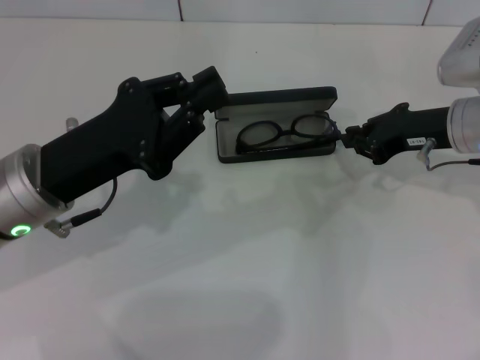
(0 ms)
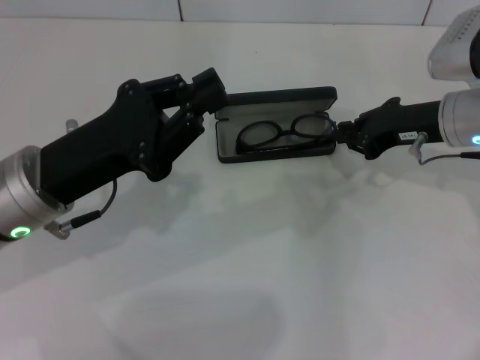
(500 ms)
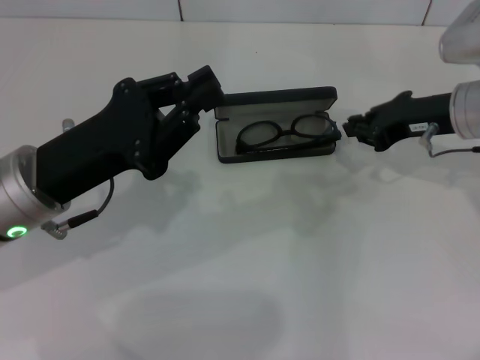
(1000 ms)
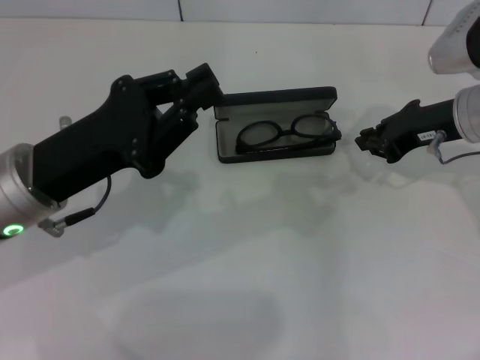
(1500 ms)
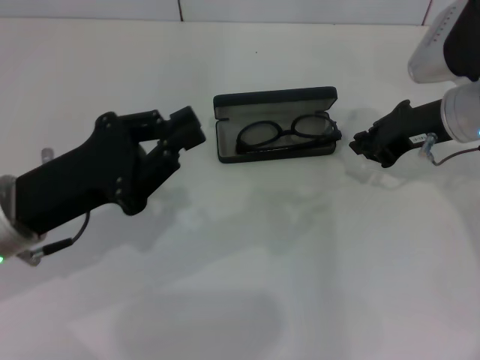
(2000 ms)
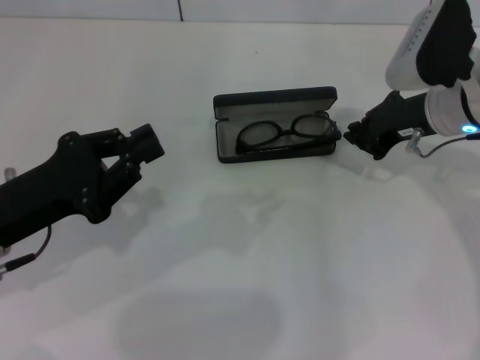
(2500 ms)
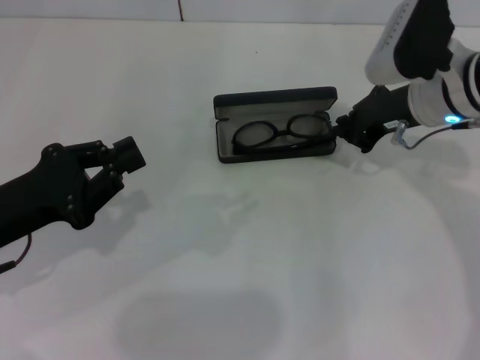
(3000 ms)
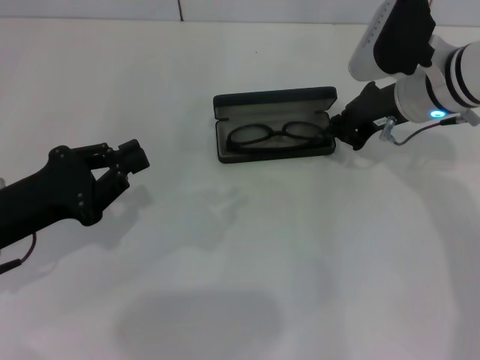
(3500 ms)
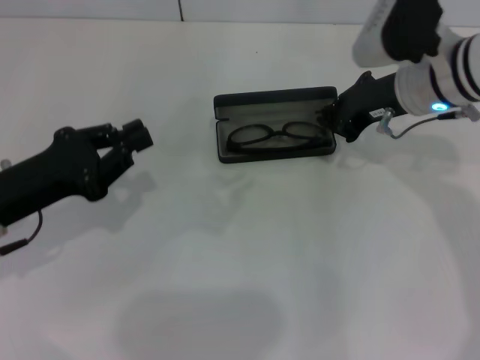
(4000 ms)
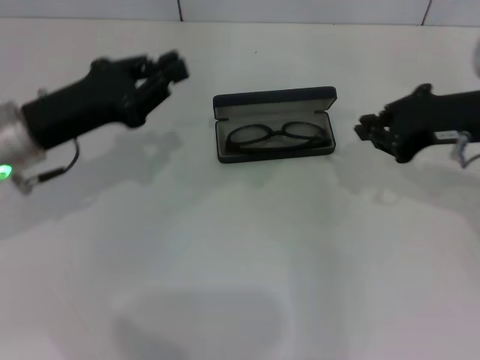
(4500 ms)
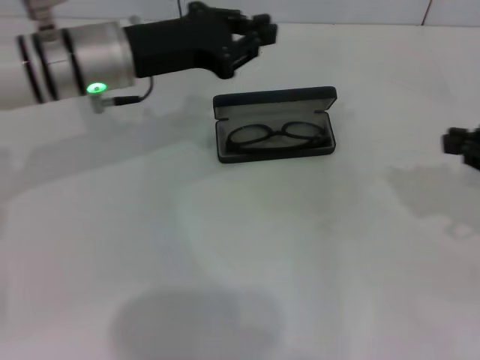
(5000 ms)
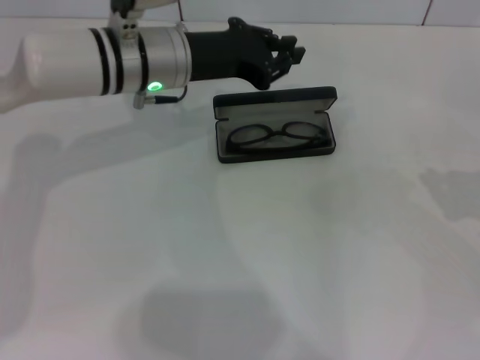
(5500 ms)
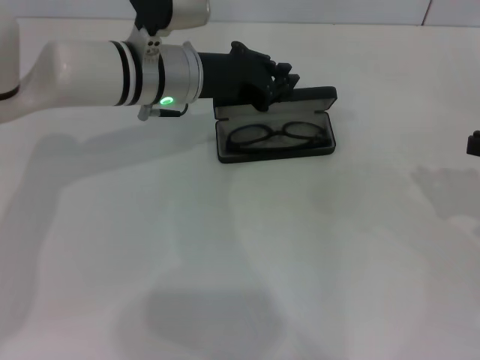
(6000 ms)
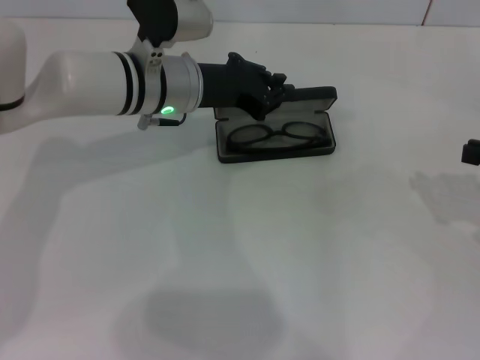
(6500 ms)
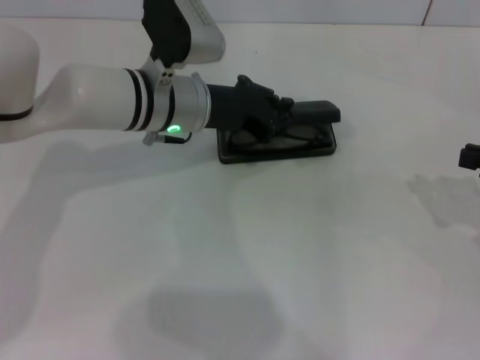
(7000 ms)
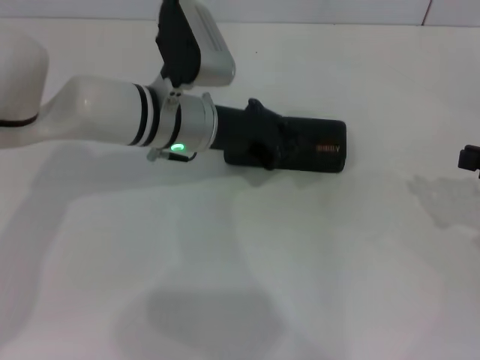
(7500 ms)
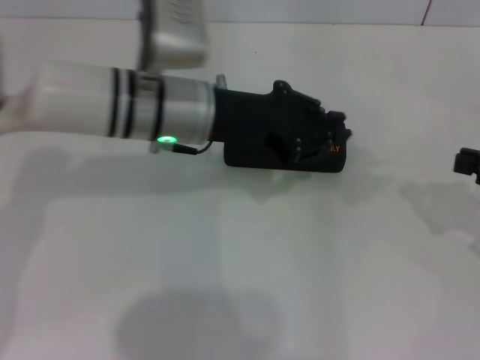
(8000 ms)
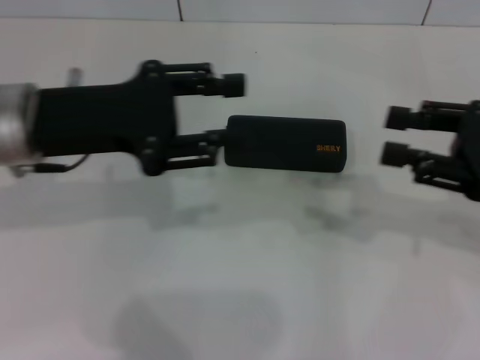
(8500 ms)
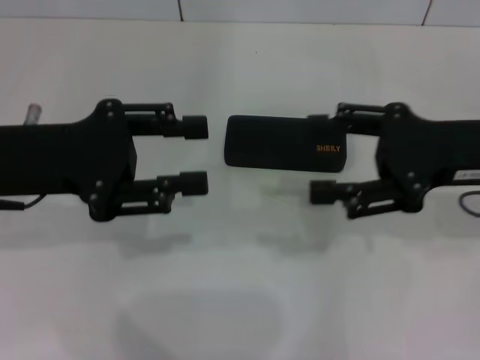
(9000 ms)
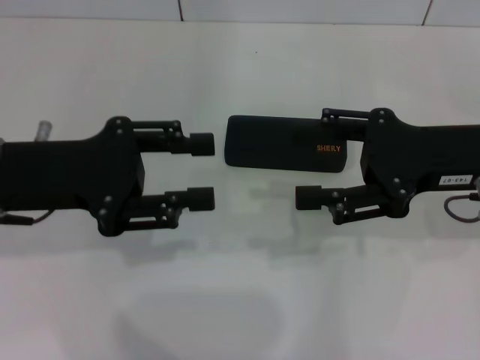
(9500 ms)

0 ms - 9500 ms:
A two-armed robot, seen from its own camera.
Step, 0 ms - 3500 ms: Put the glasses into the case with your right hand.
Step, 4000 ms - 7500 ms: Close the glasses case with your left hand.
0 ms - 2000 ms: The grippers make only small movements.
2000 ms - 4000 ms: The right gripper moves approximately 5 cm.
4000 ms - 5500 ms: The right gripper goes some 25 cm to the right and backward. Meanwhile the left gripper is displaced to the right and forward by roughly 20 cm.
5500 ms - 7500 ms: The left gripper moves roughly 5 cm.
7500 ms - 9500 ms: The right gripper is displaced to the left by about 15 cm, and opens up, while the left gripper moves to the left, backward and upward, approximately 20 cm, and opens its fingers.

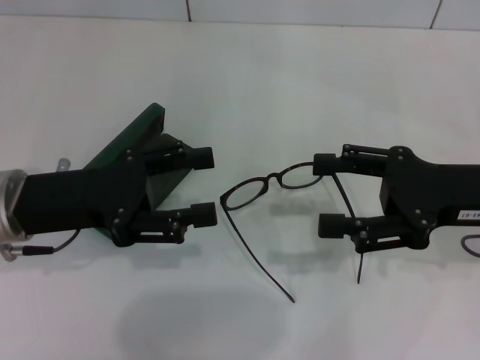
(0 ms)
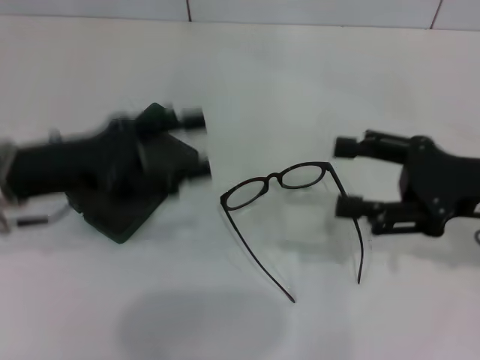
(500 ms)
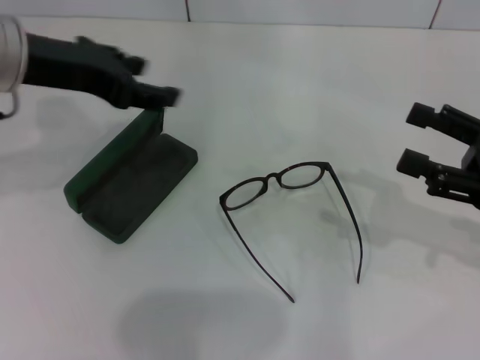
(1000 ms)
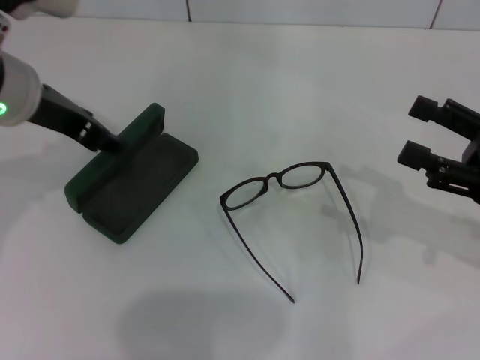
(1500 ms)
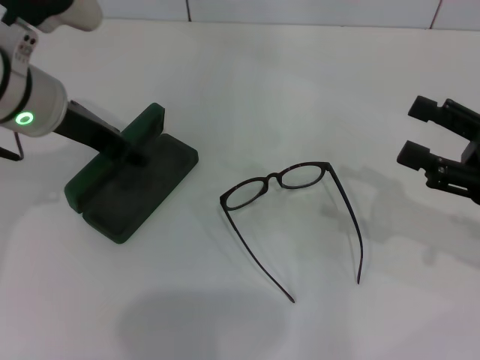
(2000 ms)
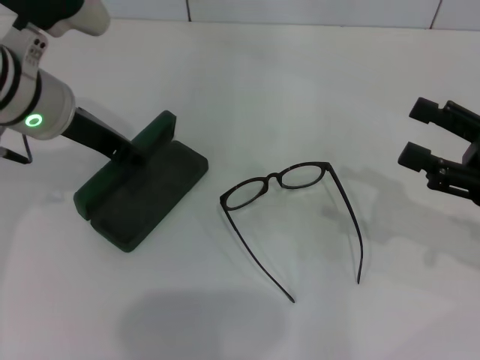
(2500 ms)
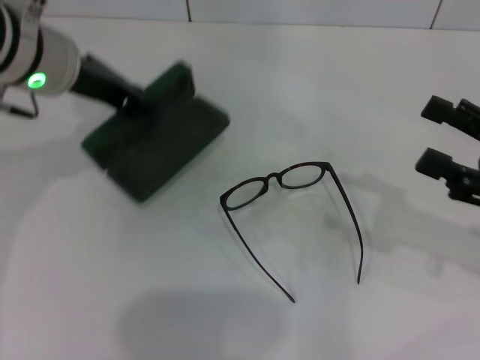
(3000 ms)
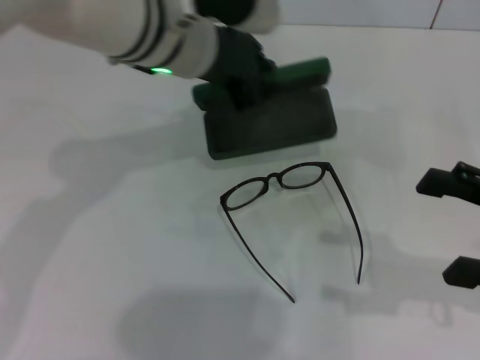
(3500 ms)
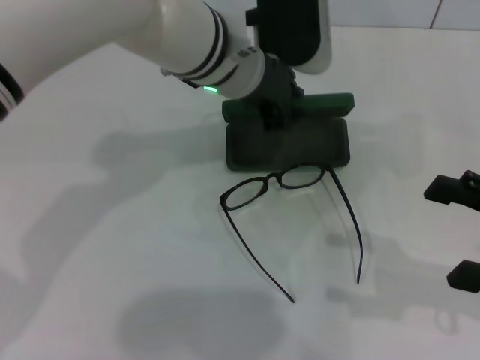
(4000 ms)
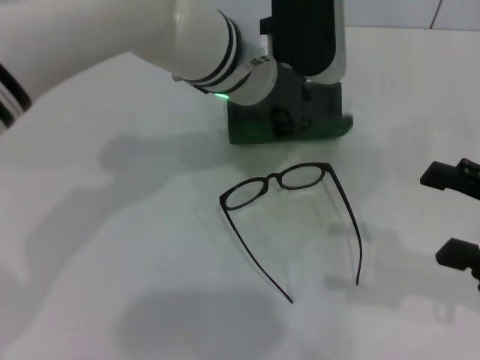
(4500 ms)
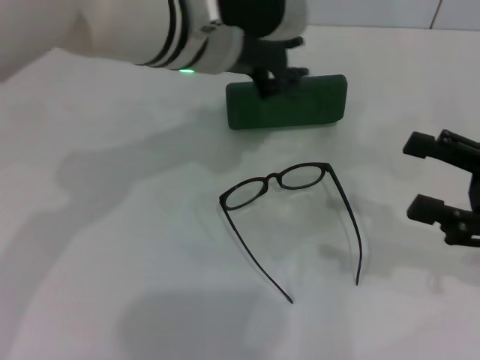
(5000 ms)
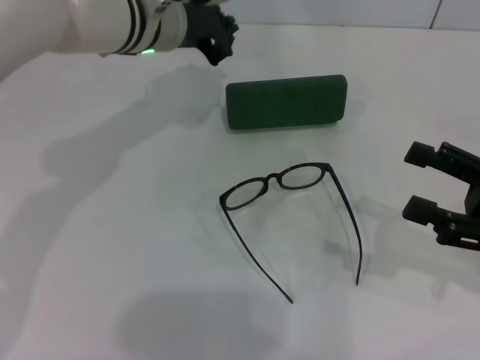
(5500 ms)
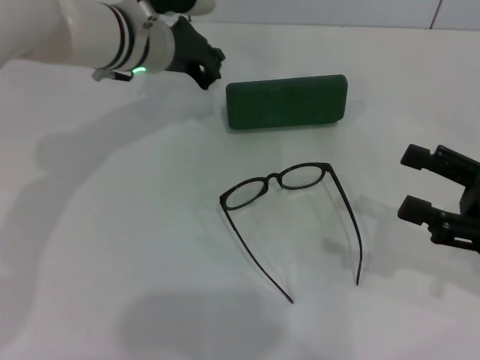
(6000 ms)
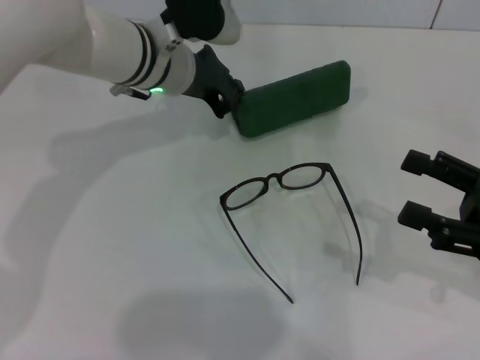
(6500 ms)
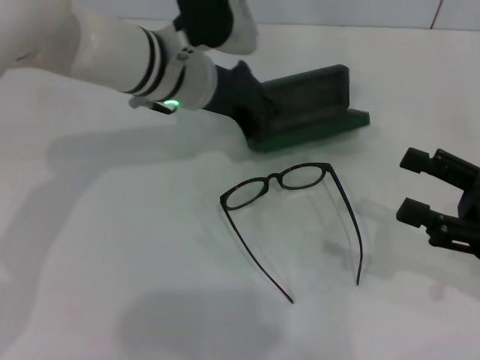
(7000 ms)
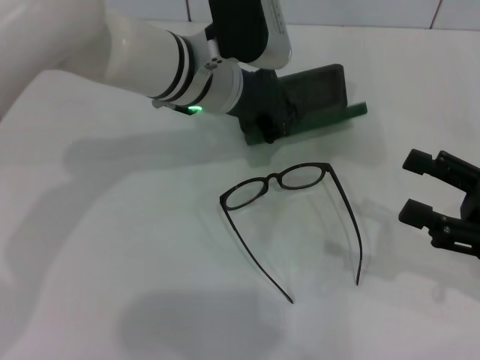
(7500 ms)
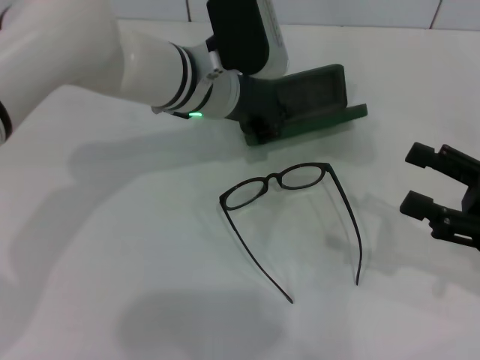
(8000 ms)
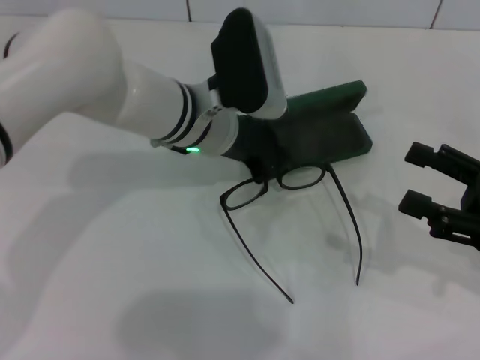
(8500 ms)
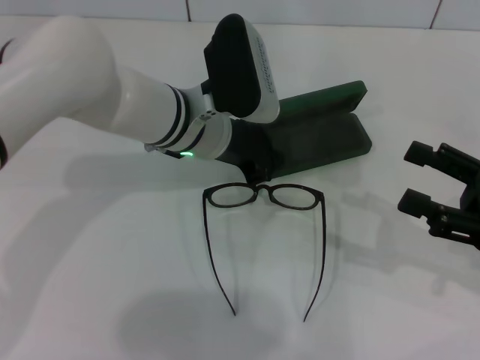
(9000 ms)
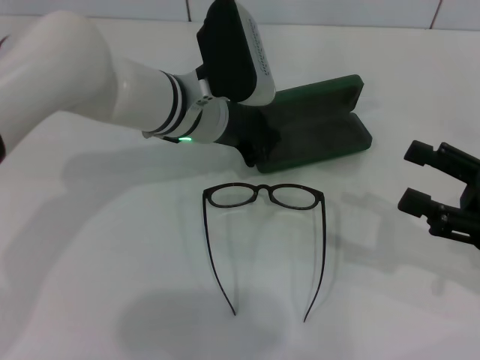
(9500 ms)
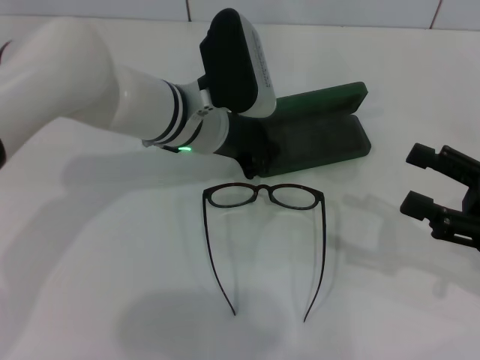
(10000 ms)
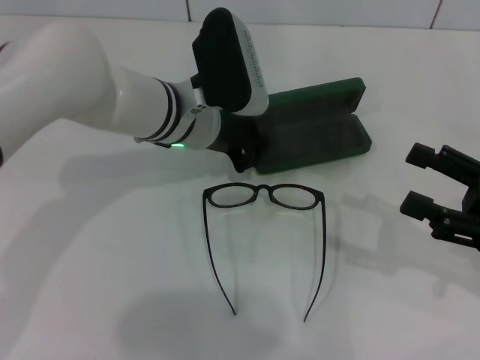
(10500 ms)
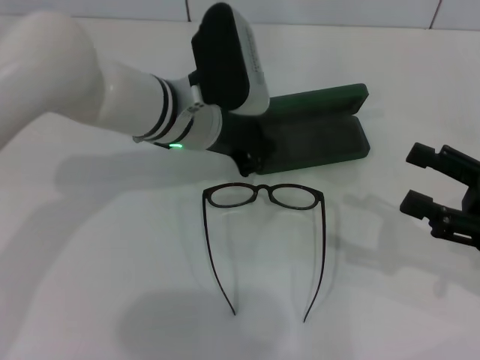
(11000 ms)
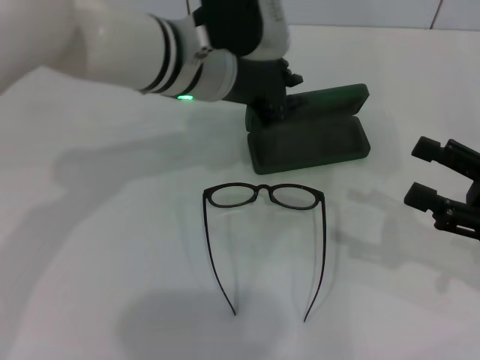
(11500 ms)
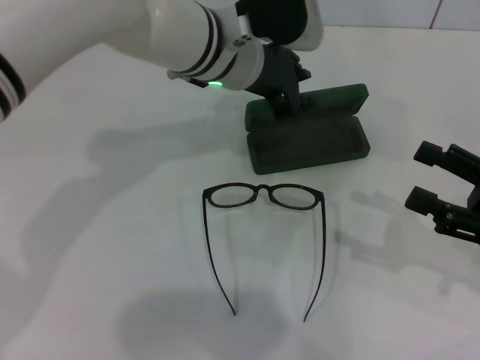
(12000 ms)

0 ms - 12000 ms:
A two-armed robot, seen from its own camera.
Step, 0 ms - 2500 ms: Grab the glasses case with your left hand.
Step, 3000 ms - 4500 ms: Place the glasses case in the center of the table with your left hand.
0 ms - 2000 ms: The right gripper heads to the right, covering about 5 cm. The left gripper shifts roughly 10 cm forward and upward.
2000 ms - 4000 ms: The left gripper heads to the right, covering some 15 cm, and closes. The right gripper is displaced backward by roughly 5 cm.
4000 ms - 6000 ms: The left gripper shifts roughly 10 cm to the left.
6000 ms - 8000 ms: The left gripper shifts about 5 cm to the right.
8000 ms - 10000 ms: The grippers make only small movements.
10000 ms - 12000 ms: The left gripper shifts some 5 cm upward.

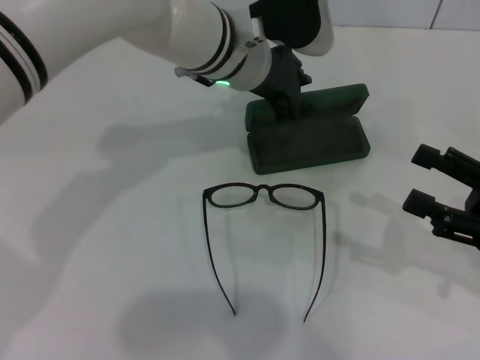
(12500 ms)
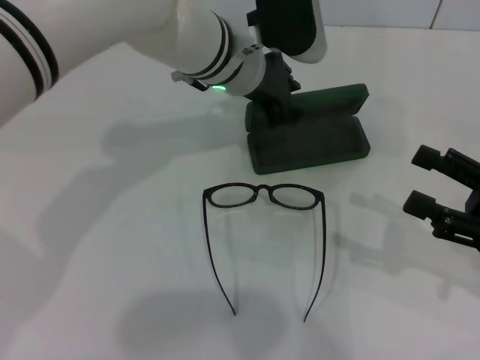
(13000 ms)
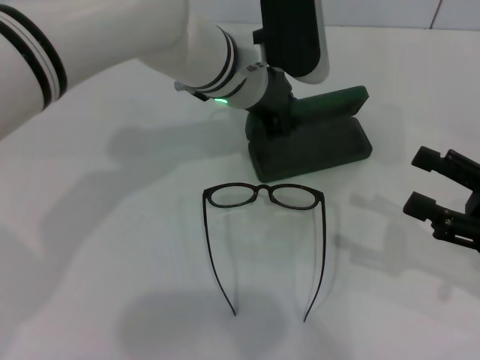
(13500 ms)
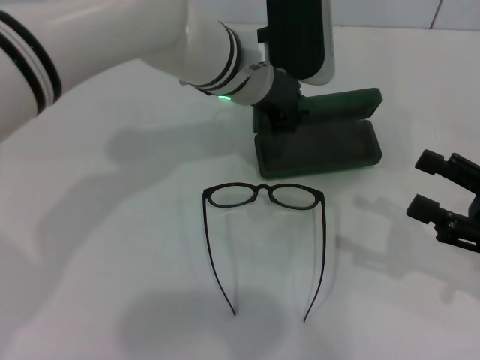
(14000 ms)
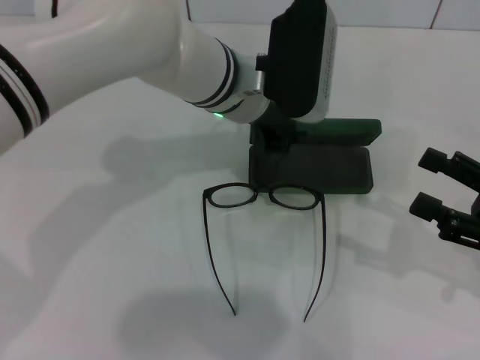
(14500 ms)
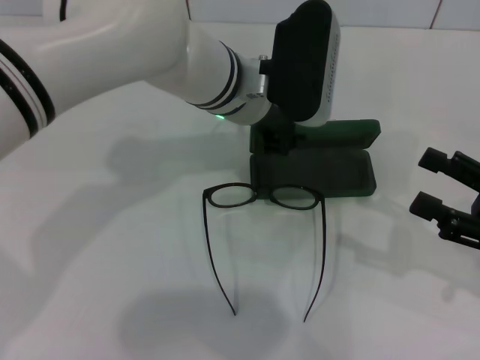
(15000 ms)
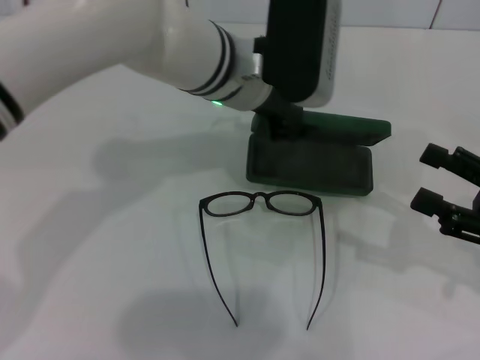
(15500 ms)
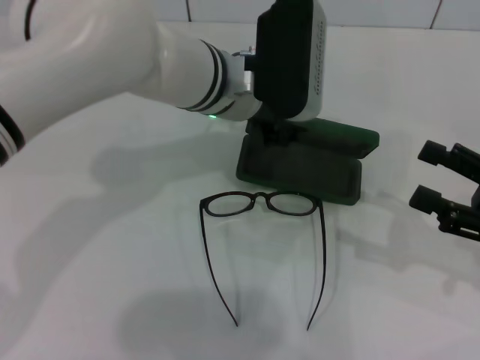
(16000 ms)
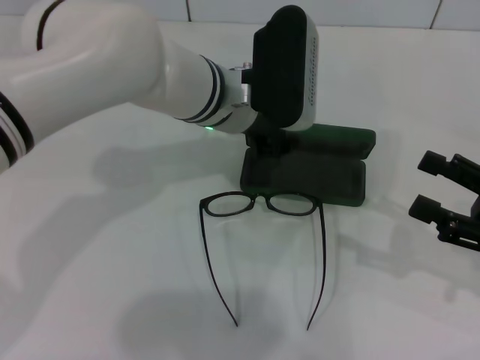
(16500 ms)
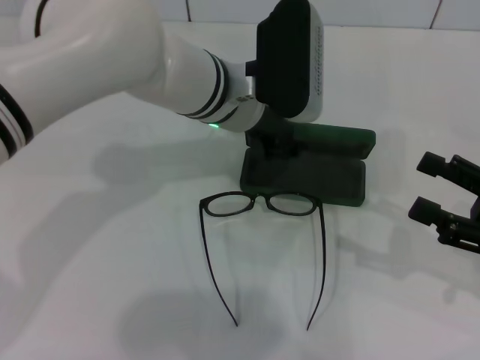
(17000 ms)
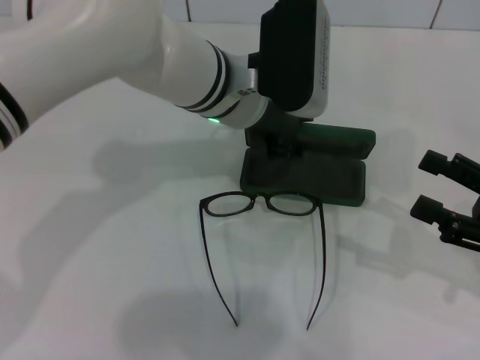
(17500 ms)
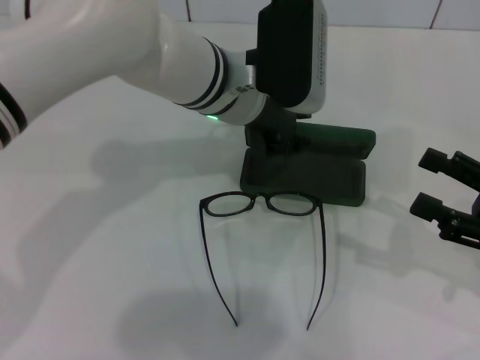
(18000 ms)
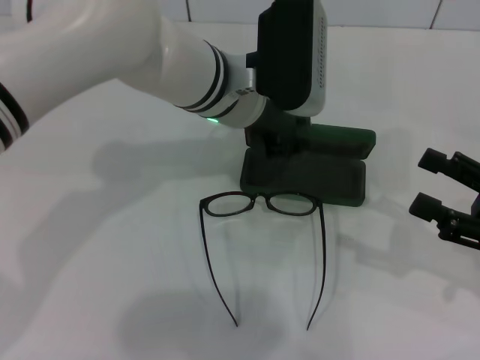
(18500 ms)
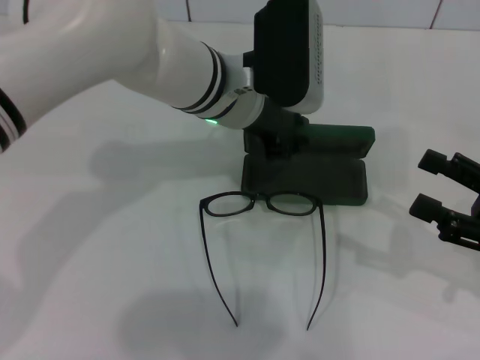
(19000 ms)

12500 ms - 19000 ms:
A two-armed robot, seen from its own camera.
12500 ms - 14500 ms: The left gripper closes.
14500 ms - 17000 ms: The left gripper opens its fingers.
17000 ms - 19000 ms: Neither gripper changes place.
